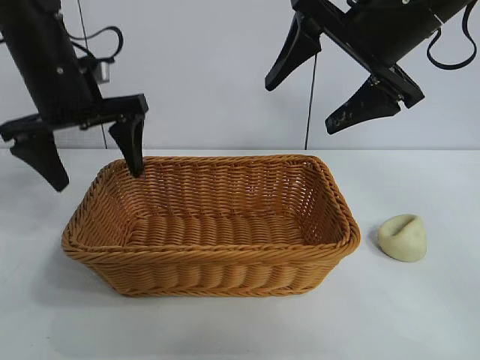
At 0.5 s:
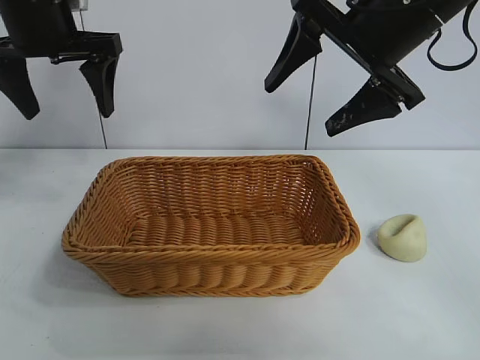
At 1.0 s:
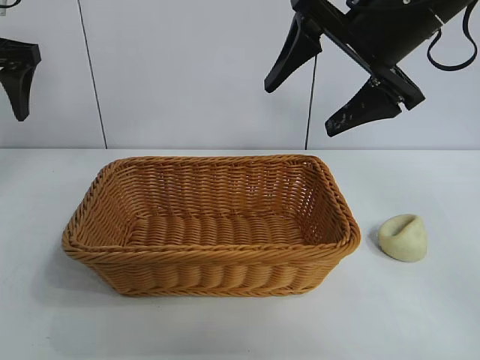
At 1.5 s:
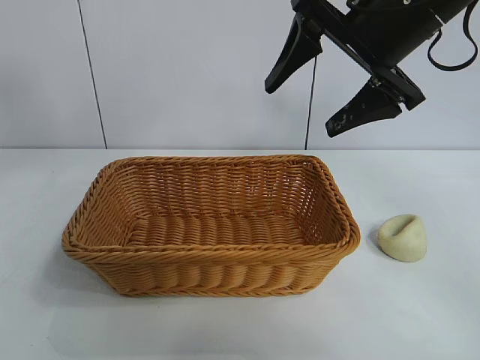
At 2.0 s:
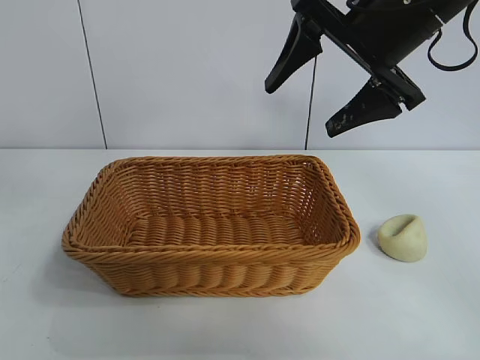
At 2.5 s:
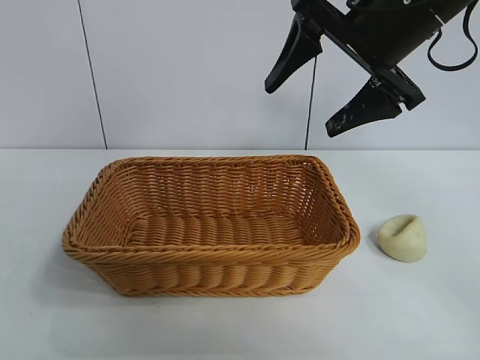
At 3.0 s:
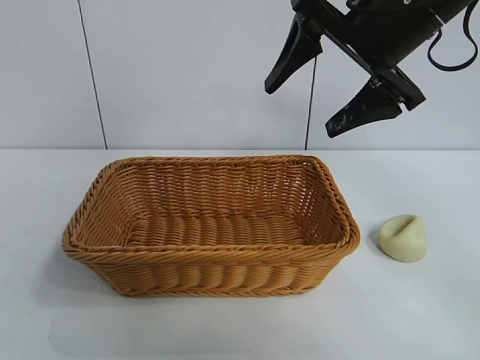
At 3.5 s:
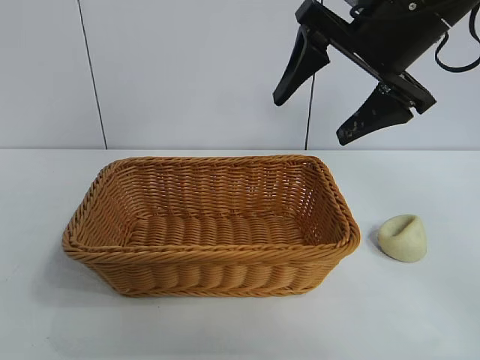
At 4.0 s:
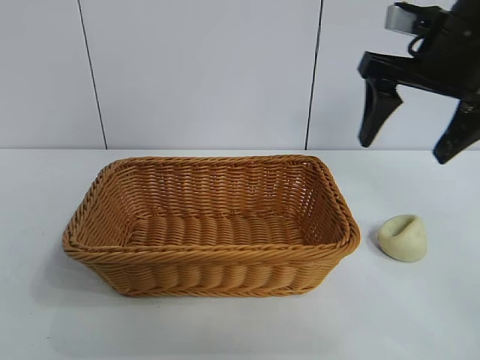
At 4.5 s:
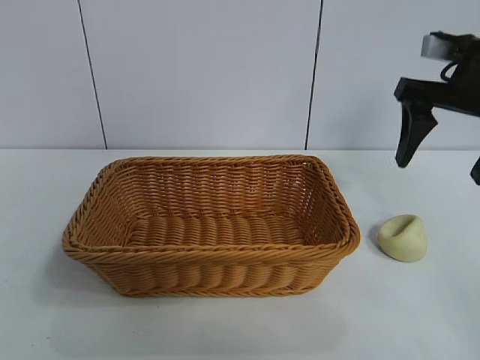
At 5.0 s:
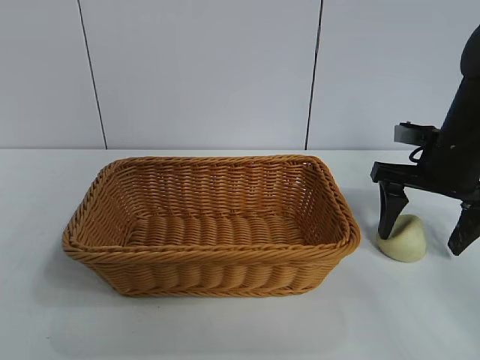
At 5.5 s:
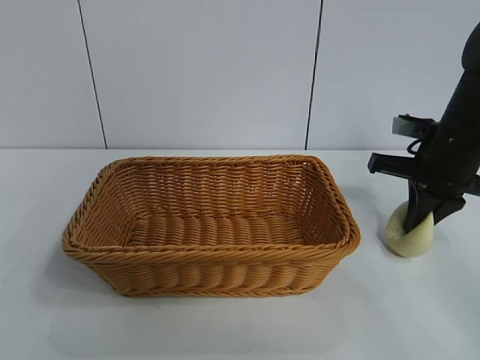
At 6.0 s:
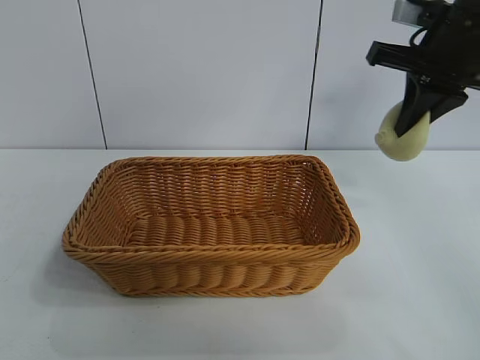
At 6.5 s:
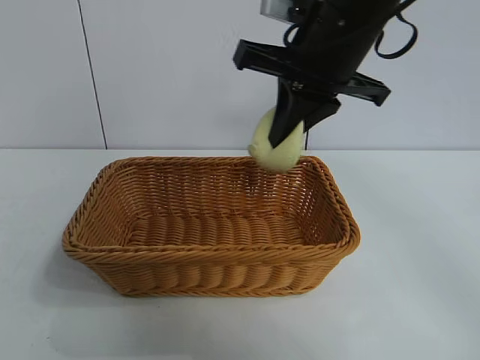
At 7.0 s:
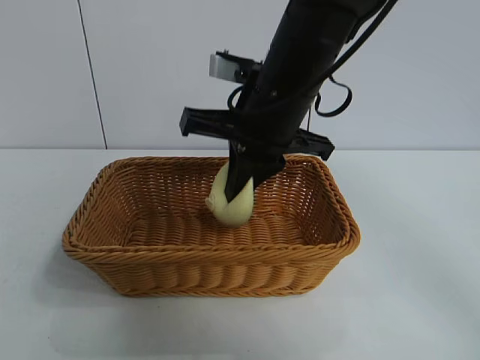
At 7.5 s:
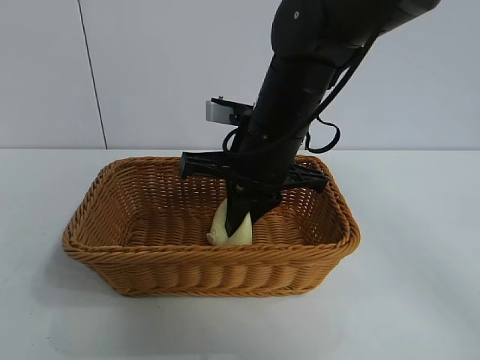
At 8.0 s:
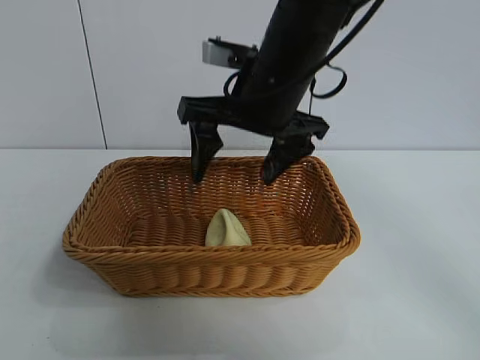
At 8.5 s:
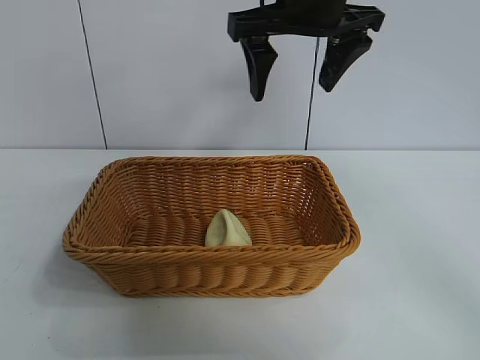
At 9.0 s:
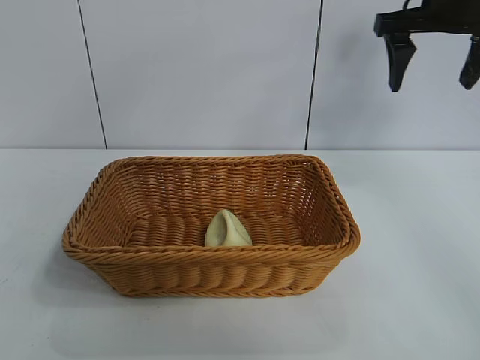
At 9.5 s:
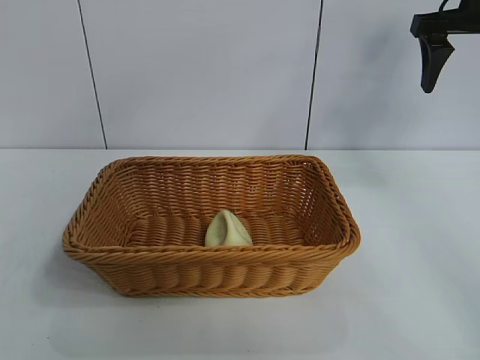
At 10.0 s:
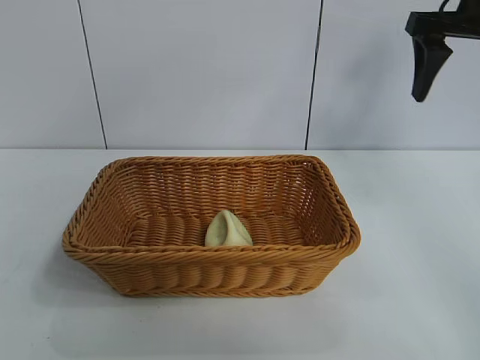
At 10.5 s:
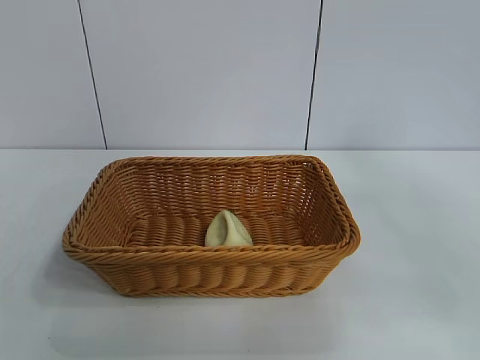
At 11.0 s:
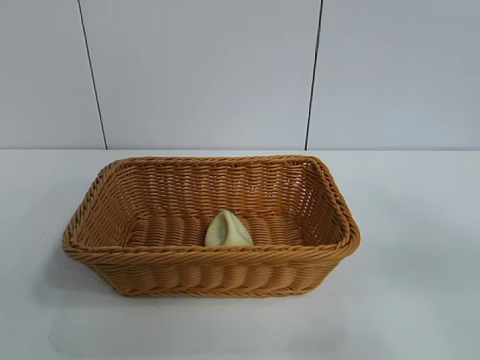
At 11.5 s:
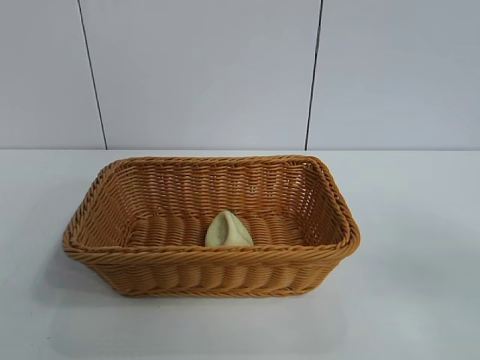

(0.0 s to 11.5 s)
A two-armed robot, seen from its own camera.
Task of the whole recording: pick up the egg yolk pastry and put it into the basket.
Step, 0.0 s - 5.0 s: Grasp egg yolk pastry with right gripper.
Step, 5.5 s - 7.5 s: Place the egg yolk pastry in the basket with right gripper.

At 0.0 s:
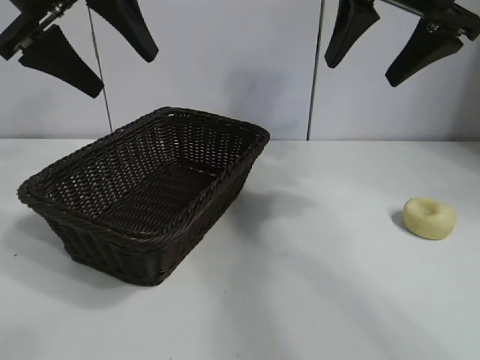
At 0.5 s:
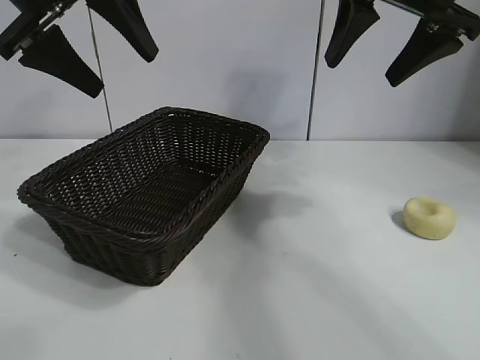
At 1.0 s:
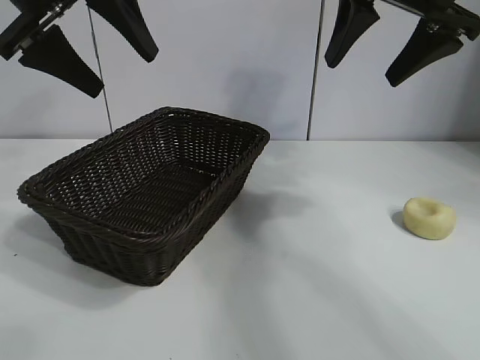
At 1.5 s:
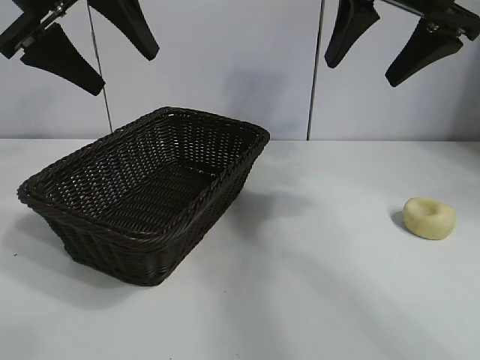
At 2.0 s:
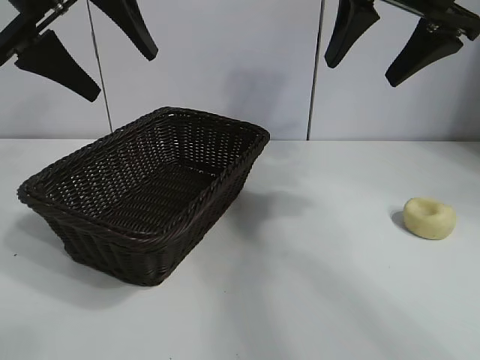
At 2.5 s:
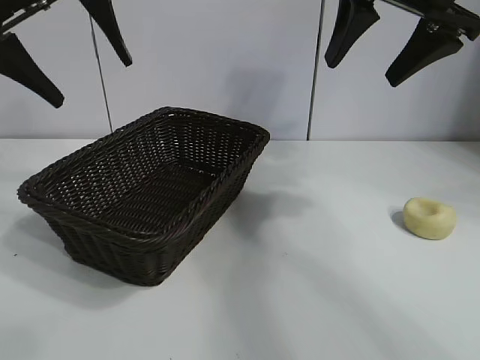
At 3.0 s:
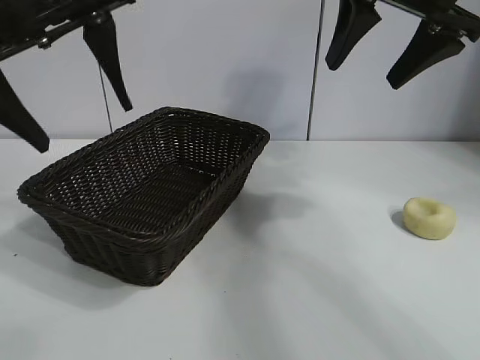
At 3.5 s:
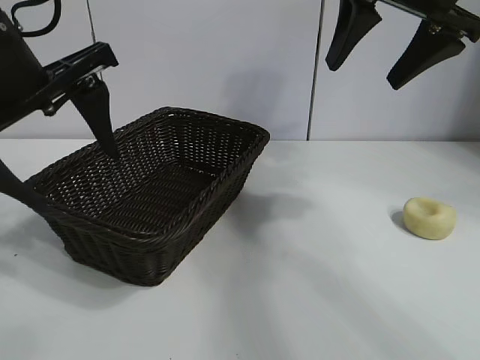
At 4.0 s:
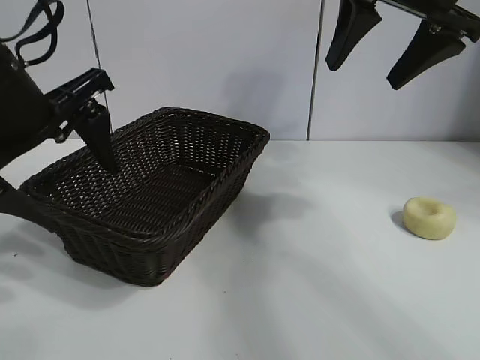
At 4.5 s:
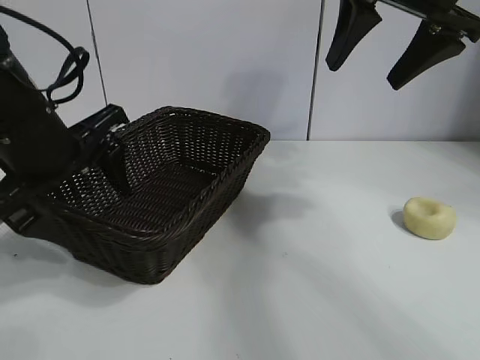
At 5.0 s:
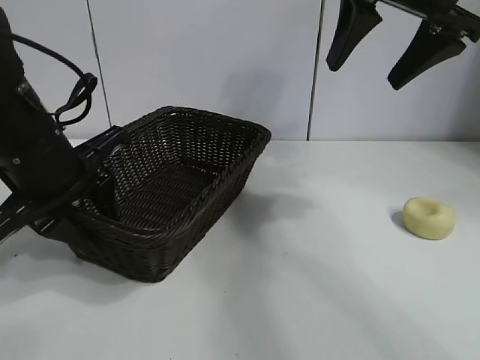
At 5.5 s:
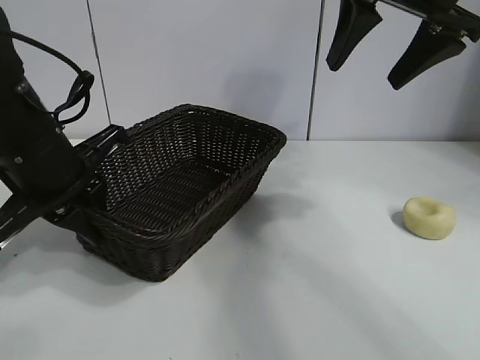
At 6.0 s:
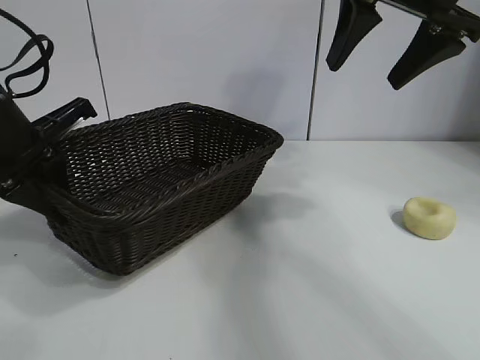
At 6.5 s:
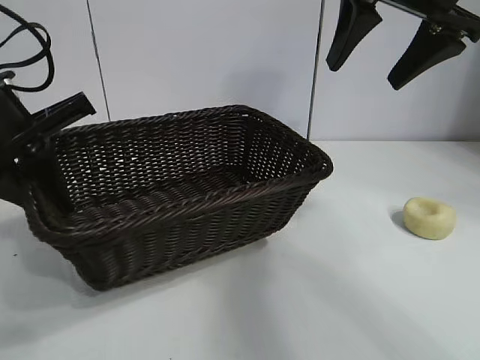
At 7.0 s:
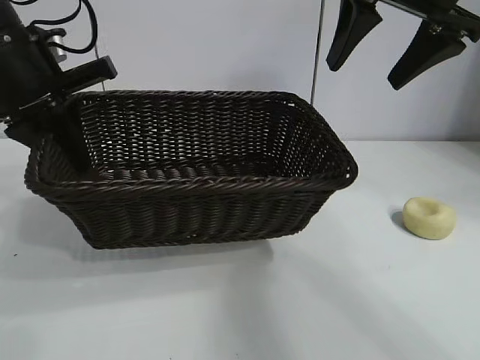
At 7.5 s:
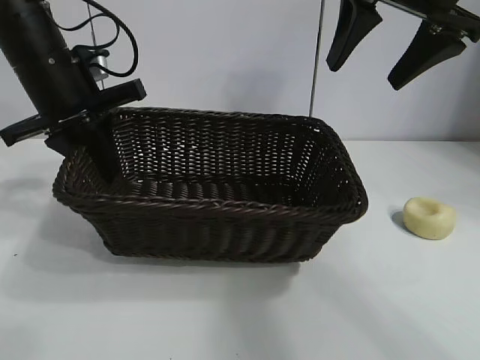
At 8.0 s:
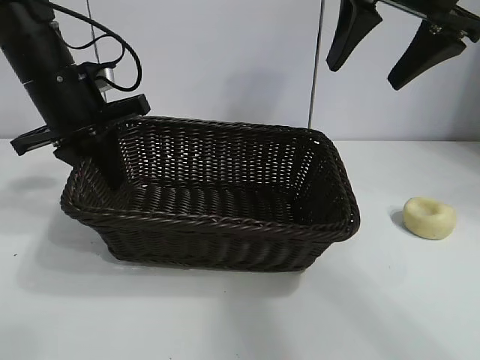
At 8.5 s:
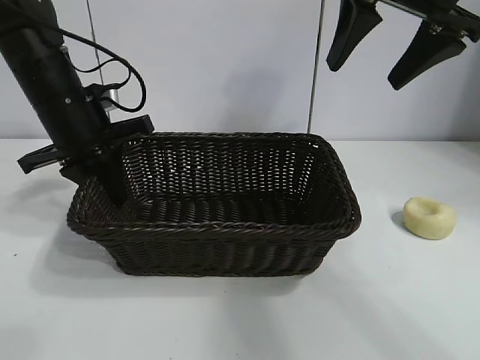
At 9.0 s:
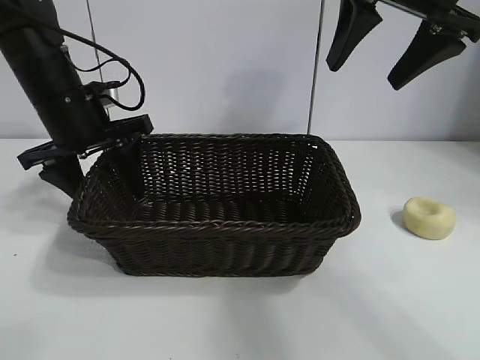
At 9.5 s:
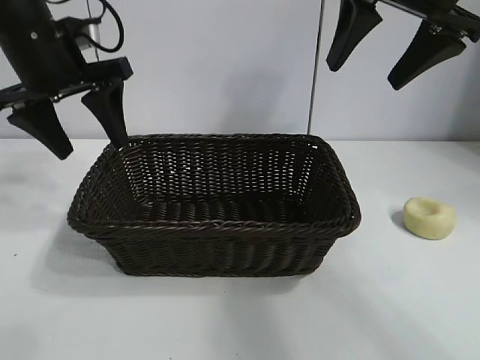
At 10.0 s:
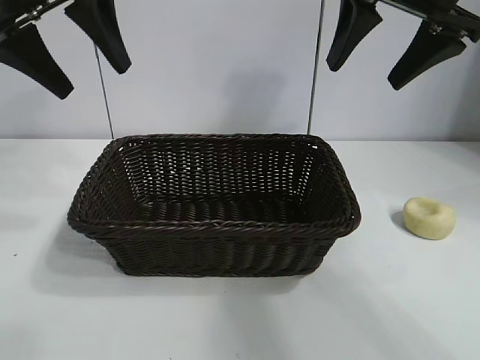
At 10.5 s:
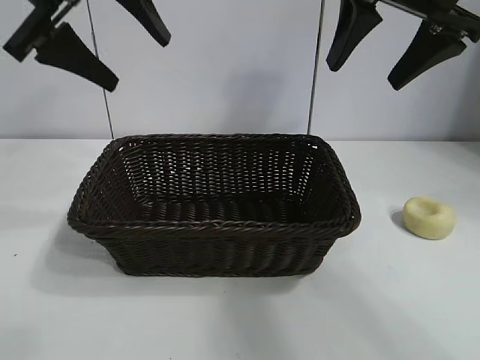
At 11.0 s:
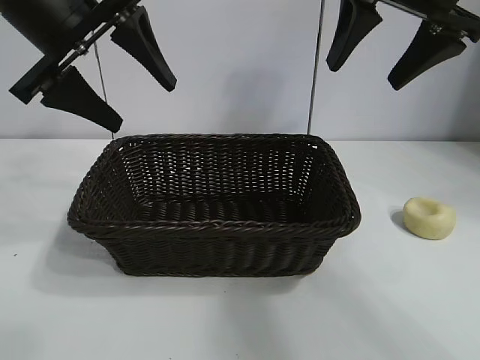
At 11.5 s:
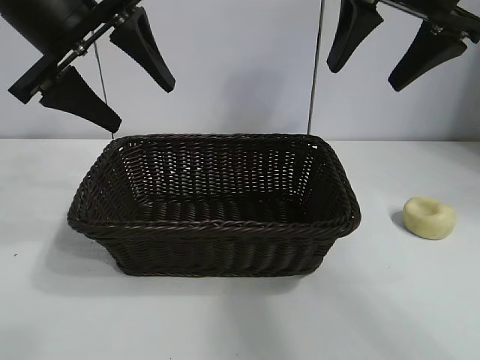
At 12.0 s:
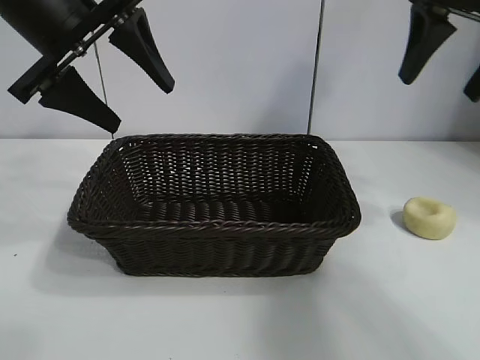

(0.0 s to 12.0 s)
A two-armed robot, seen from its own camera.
Task of the whole recording: pick up the egg yolk pastry and put it into the basket.
Step, 1.5 s - 5.0 s: Grasp the basket with left gripper.
Step, 5.5 s - 9.0 s: Place the basket in the center of view with left gripper.
